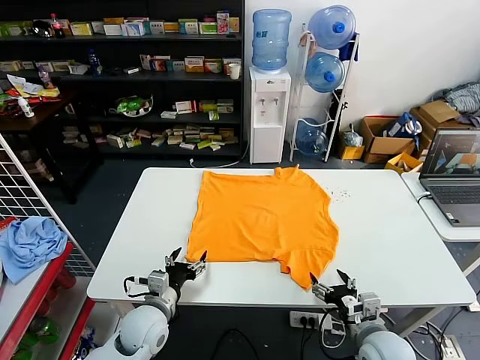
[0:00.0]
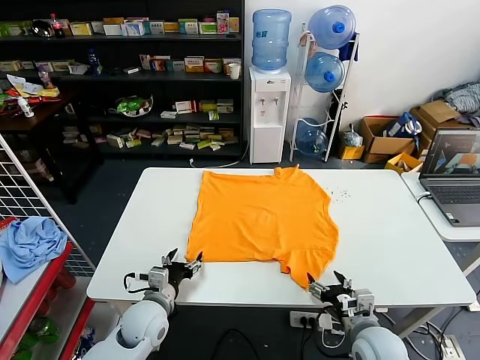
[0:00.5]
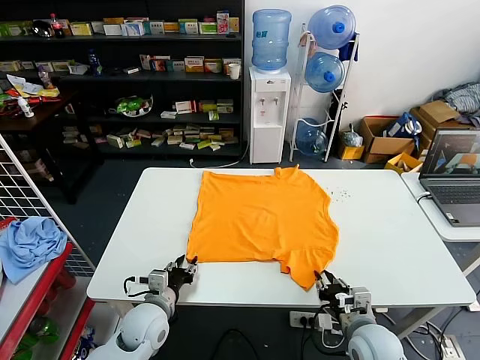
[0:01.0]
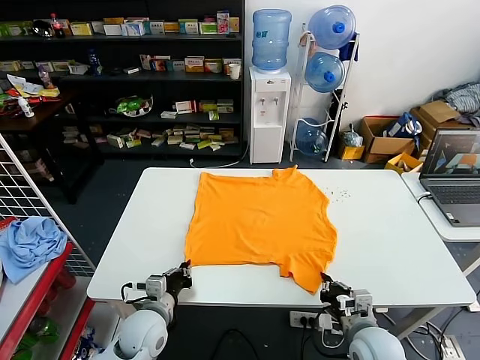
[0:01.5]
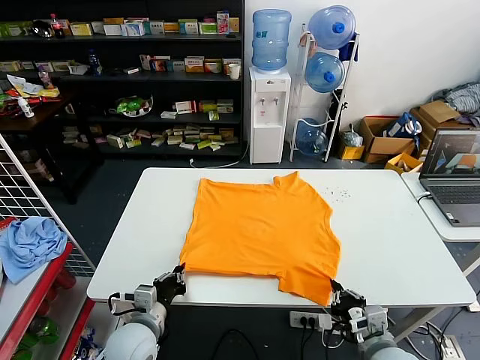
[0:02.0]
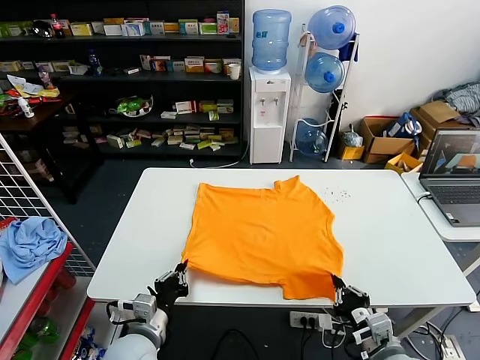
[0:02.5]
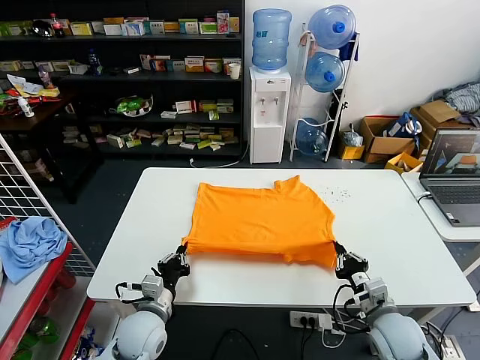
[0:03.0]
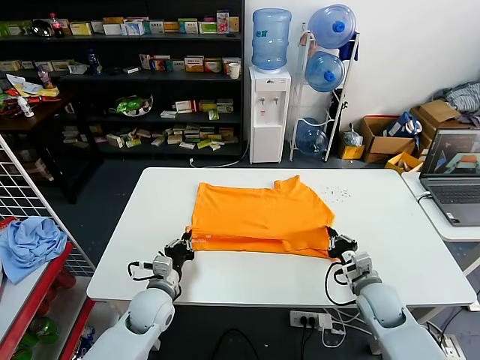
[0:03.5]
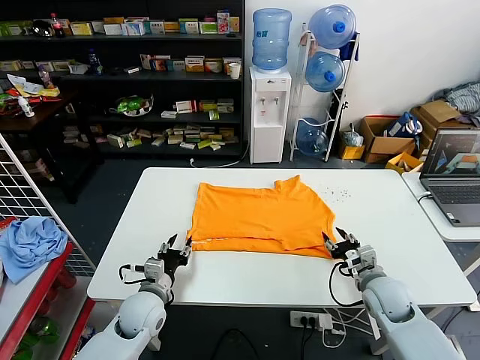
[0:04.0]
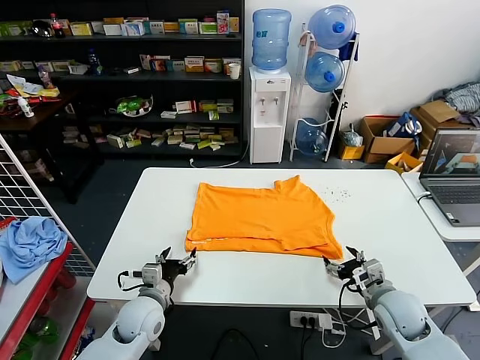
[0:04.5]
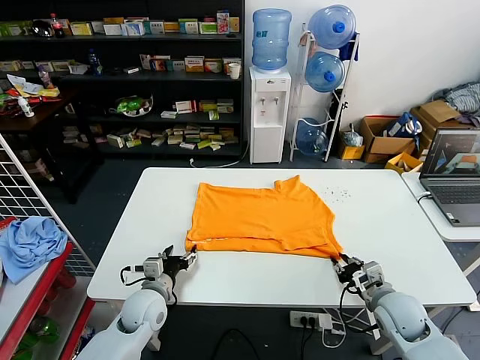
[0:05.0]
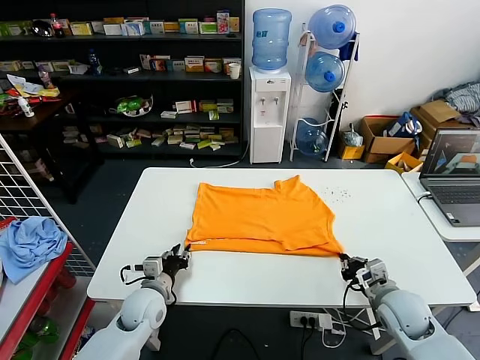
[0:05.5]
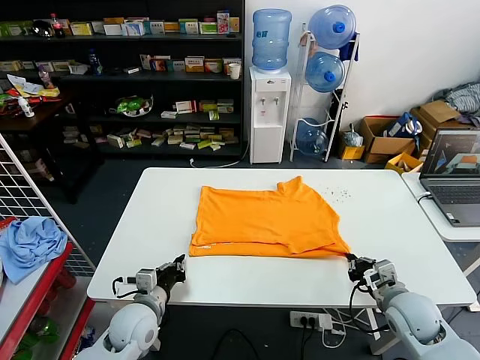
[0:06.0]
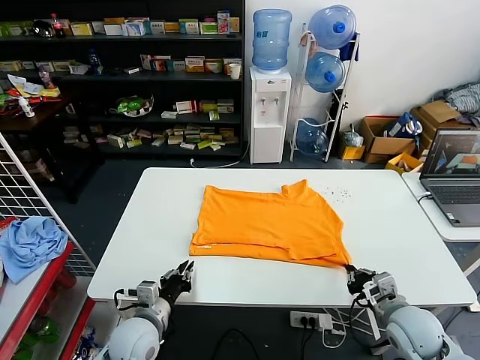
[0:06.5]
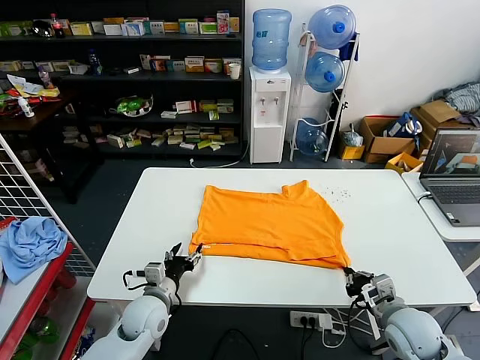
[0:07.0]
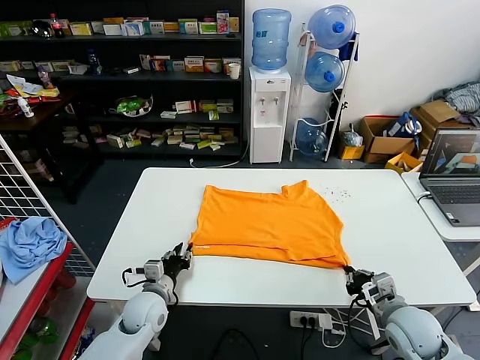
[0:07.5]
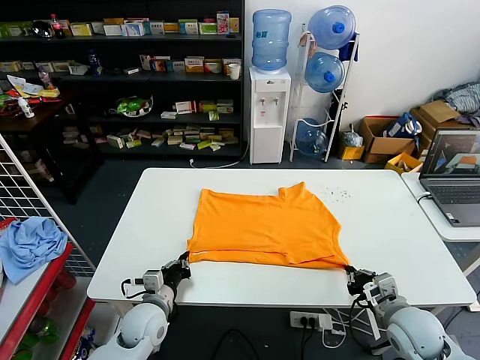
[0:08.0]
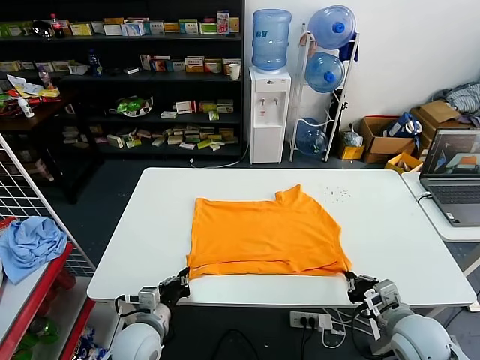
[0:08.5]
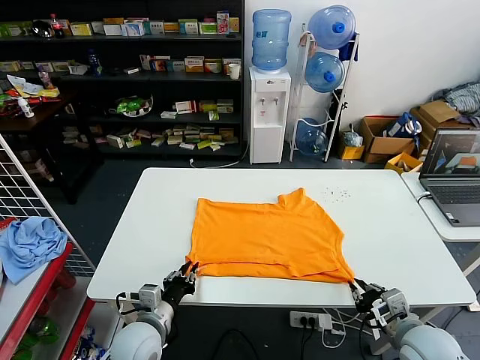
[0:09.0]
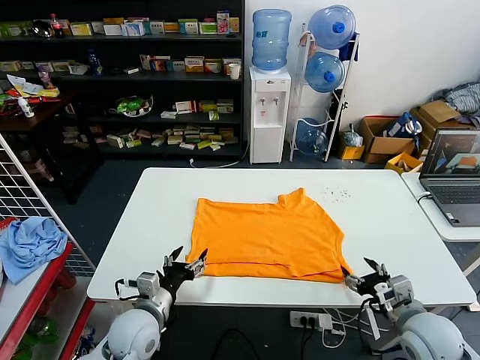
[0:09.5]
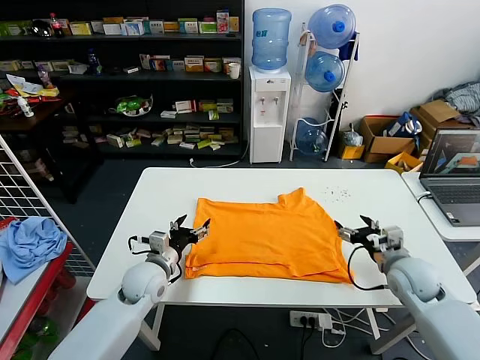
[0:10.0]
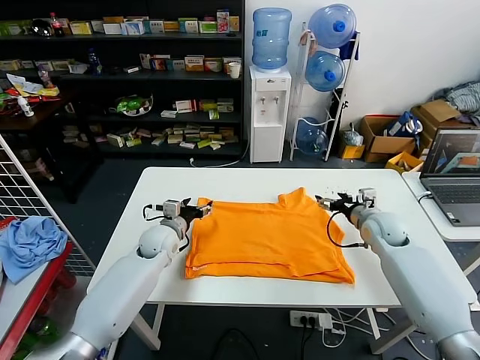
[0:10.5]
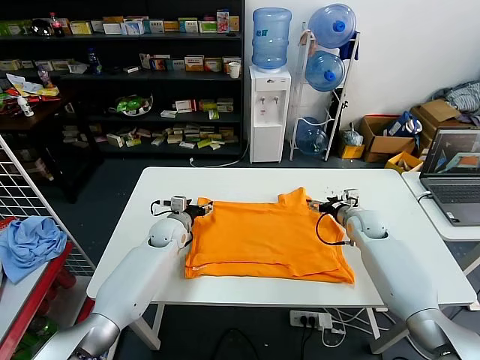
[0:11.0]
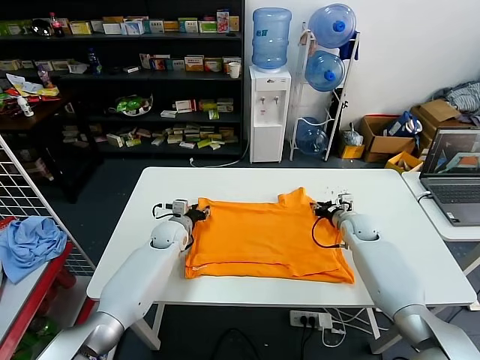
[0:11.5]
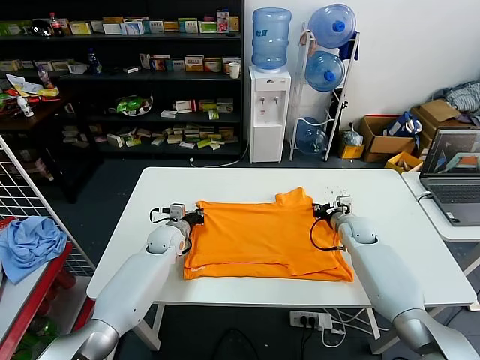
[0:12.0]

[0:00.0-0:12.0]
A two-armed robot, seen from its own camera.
Task of the whole recording: fold and organize the clothes.
Step, 0:00.0 to 0:01.5: use both grippers simultaneously to clamp the lower edge of the clothing fabric.
Step, 0:02.0 to 0:04.0: use both grippers to drag the lower edge of the fabric forward and fold it over the upper edge.
Step, 0:04.5 to 0:09.0: Drag the clothes downward with both gripper.
Step, 0:09.5 to 0:12.0: use both grippers simultaneously to clamp the upper edge of the clothing fabric.
0:02.0 to 0:04.0: The right gripper heads forward, covering about 15 cm, and opens. Meanwhile the left gripper heads forward, covering some 5 cm, and opens up.
0:04.0 to 0:06.0: The left gripper closes, while the right gripper ends up roughly 5 cm from where it was, and closes.
0:06.0 to 0:08.0: The left gripper opens, then closes again.
0:08.0 to 0:10.0: The right gripper shifts about 10 cm forward, and opens its fingers, while the left gripper is displaced forward and upward by some 10 cm, and opens up.
0:10.0 to 0:12.0: The right gripper goes about 15 cm forward and downward, and closes its fingers. Meanwhile the left gripper moves forward, approximately 15 cm, and closes.

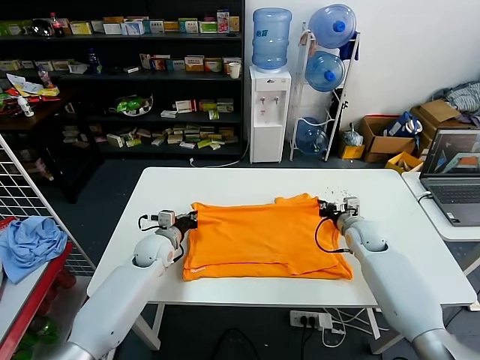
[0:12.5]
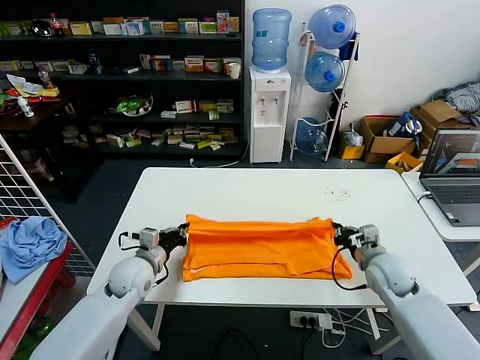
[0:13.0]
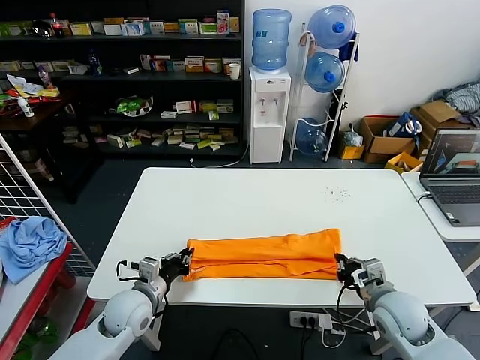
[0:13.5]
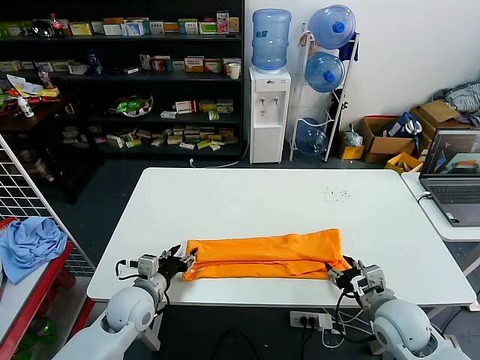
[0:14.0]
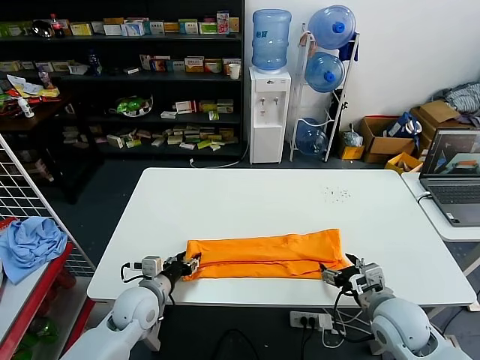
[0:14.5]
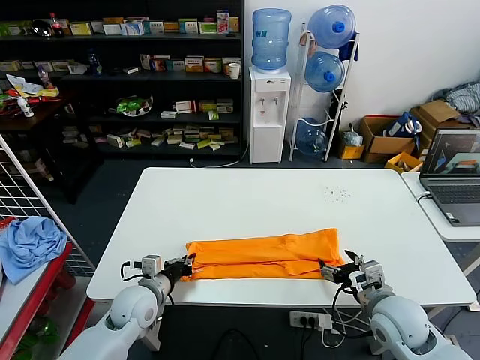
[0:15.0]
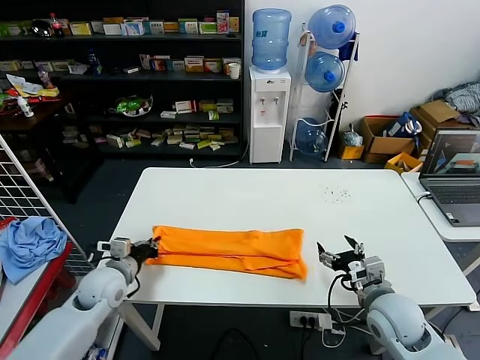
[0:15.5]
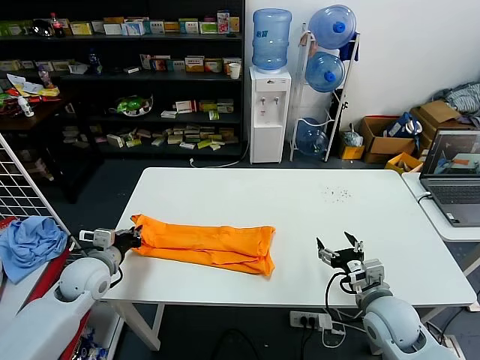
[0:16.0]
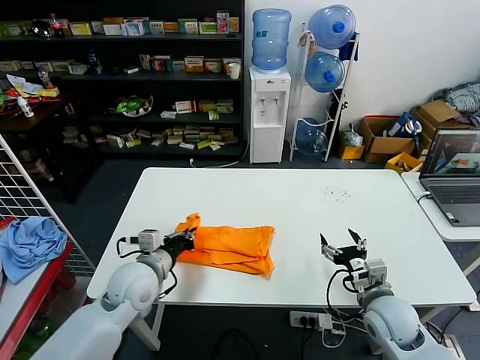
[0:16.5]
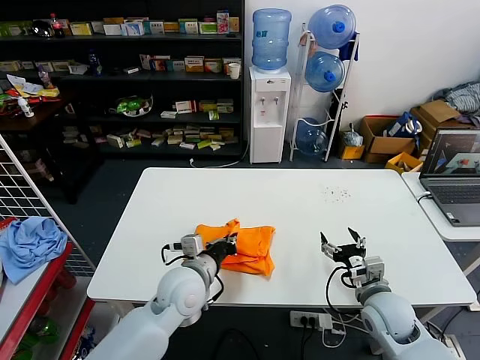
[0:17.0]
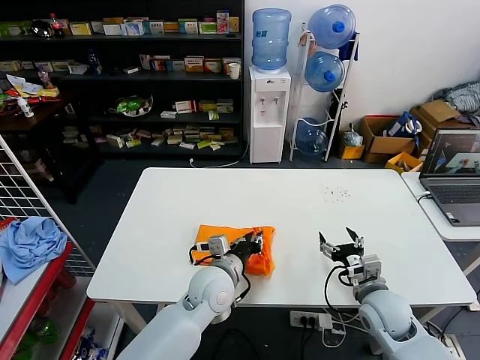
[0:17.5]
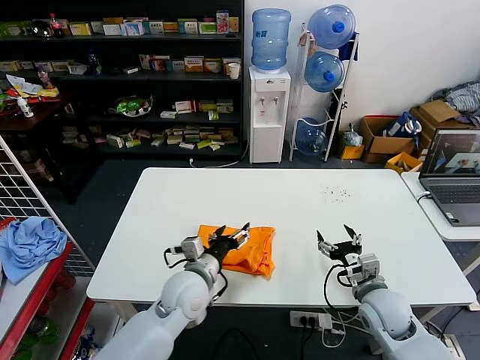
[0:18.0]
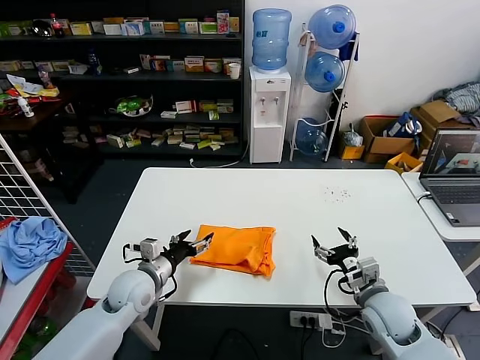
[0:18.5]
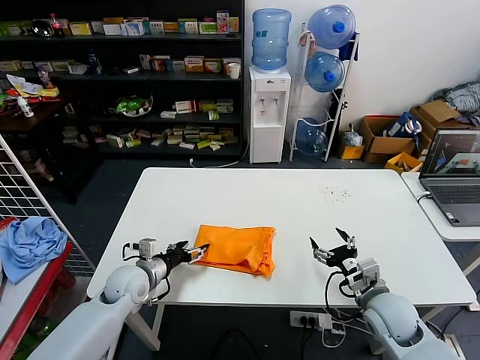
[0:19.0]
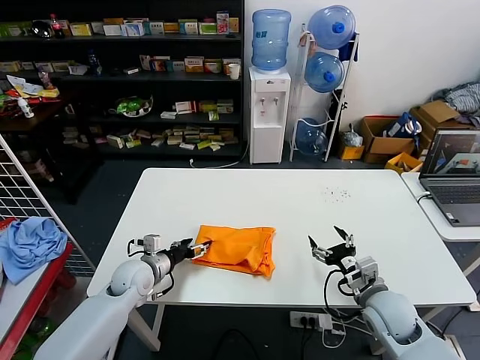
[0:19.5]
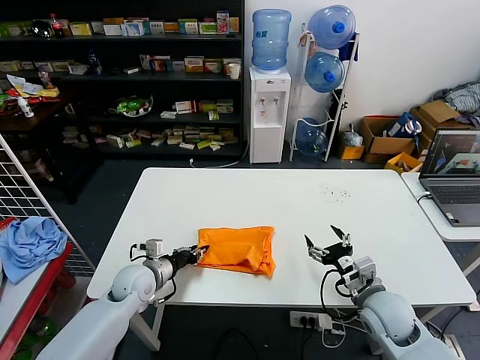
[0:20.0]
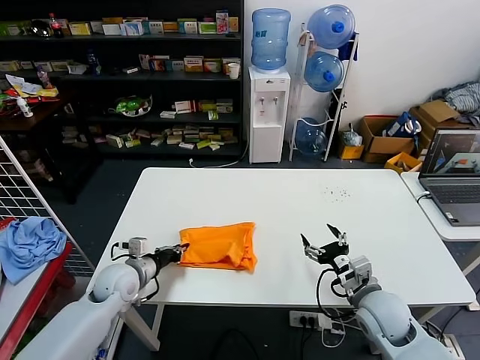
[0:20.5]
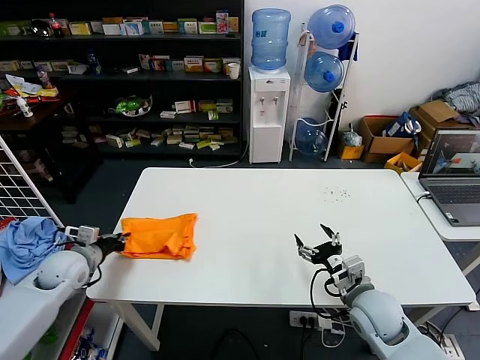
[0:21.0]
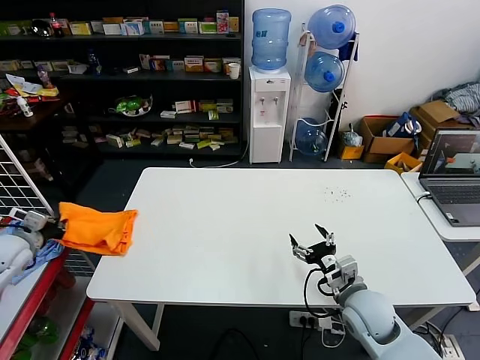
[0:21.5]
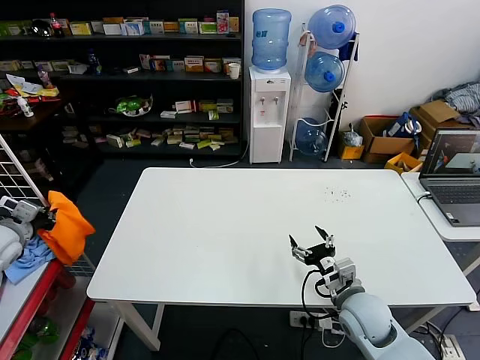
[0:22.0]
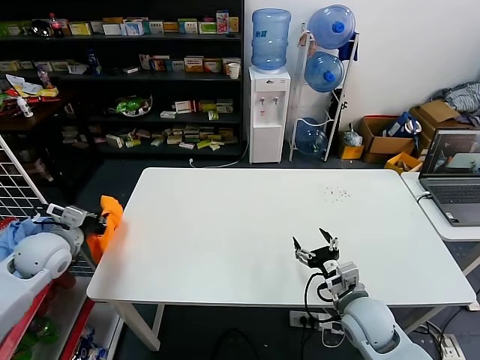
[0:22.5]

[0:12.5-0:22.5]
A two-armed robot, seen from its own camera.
Task of the whole recording: fold and organize the clothes.
Step, 0:12.5 to 0:14.0: use both grippers to drag the upper edge of the fabric backward and fold it over the lower edge.
Step, 0:14.5 to 0:15.0: use the left gripper to clamp the left edge of the fabric.
Step, 0:15.5 to 0:17.5: use the left gripper to drag the left edge of the fabric to the left and folds it over the right edge.
0:12.5 to 0:14.5: The right gripper heads backward, covering some 20 cm, and opens its fingers. The left gripper heads backward, covering roughly 15 cm, and opens its fingers.
0:14.5 to 0:16.5: The left gripper is displaced upward by about 10 cm, reaches about 10 cm to the left, then returns, and closes up.
0:16.5 to 0:18.5: The left gripper is displaced downward by roughly 5 cm, travels to the right and back again, about 15 cm each way, and opens.
0:18.5 to 0:20.5: The left gripper moves about 5 cm, and closes its fingers.
0:20.5 to 0:22.5: The left gripper moves to the left and upward, some 20 cm.

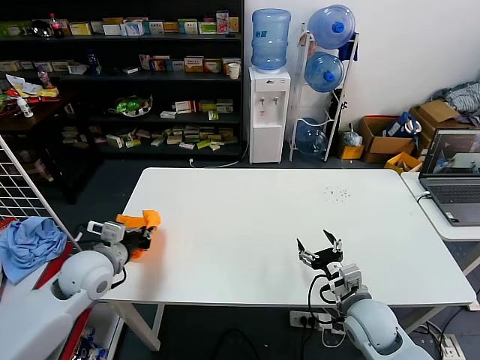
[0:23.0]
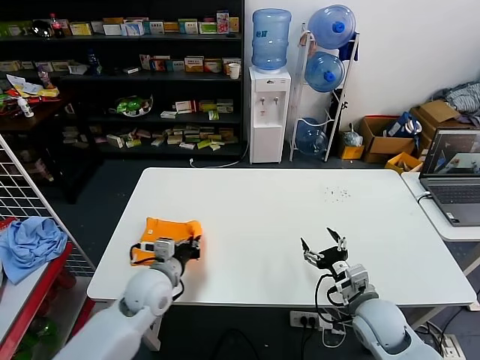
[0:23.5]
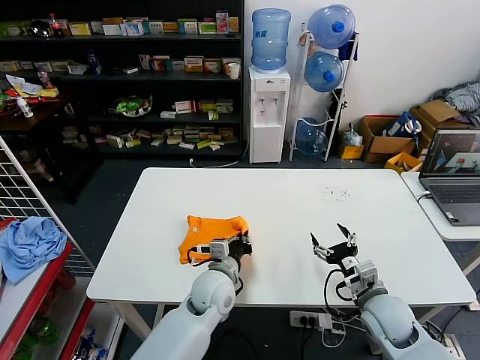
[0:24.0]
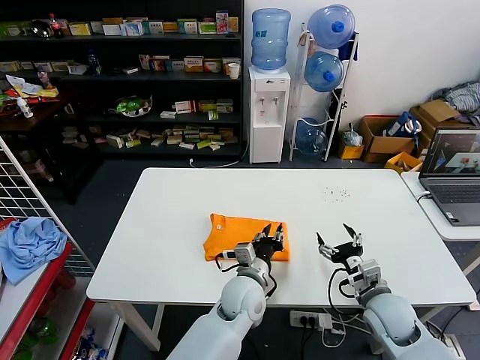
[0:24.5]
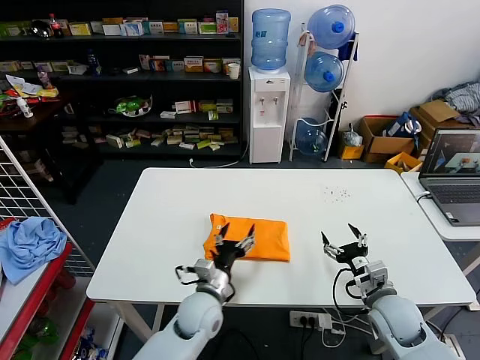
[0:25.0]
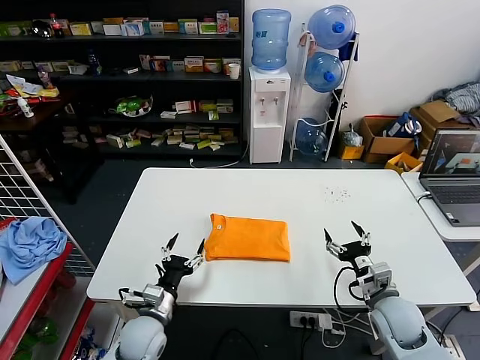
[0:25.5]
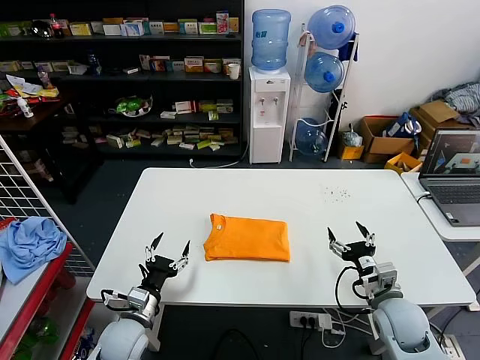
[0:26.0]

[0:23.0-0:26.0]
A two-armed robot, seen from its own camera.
Task of the whole recording: fold and organize the clothes.
0:23.0 to 0:24.5: The left gripper goes some 35 cm to the right, while the right gripper changes place by about 5 cm.
0:24.5 to 0:26.0: The left gripper moves to the left, roughly 25 cm, and opens up.
